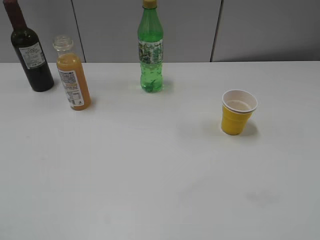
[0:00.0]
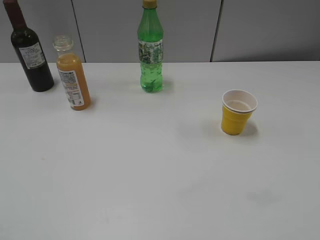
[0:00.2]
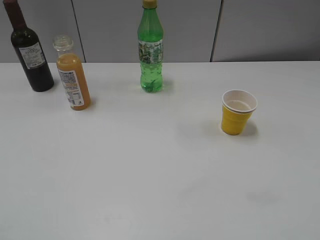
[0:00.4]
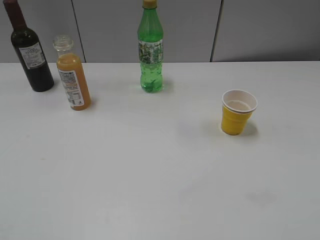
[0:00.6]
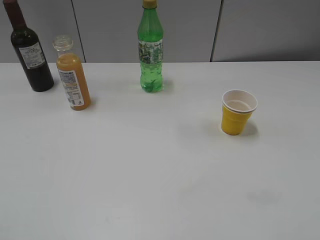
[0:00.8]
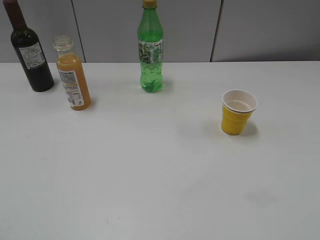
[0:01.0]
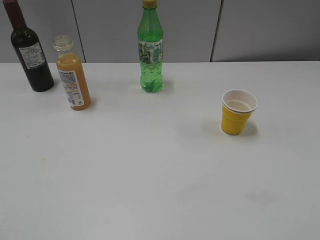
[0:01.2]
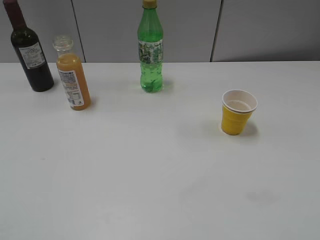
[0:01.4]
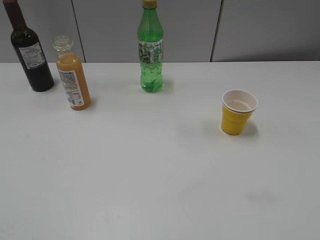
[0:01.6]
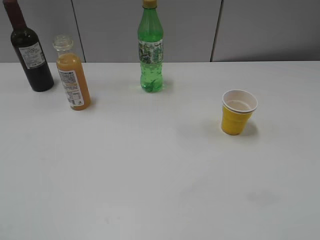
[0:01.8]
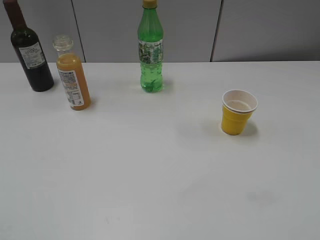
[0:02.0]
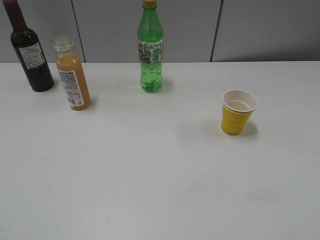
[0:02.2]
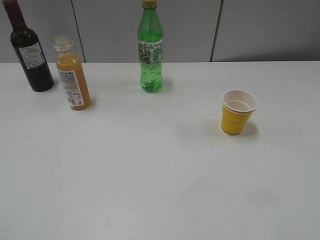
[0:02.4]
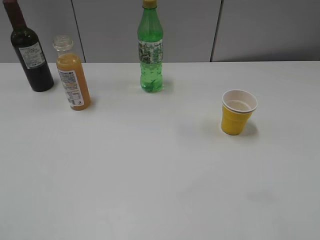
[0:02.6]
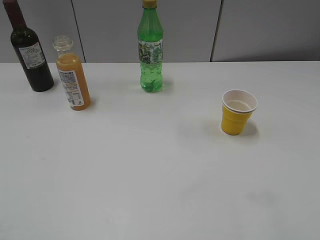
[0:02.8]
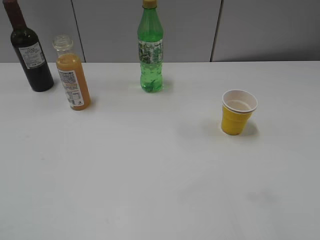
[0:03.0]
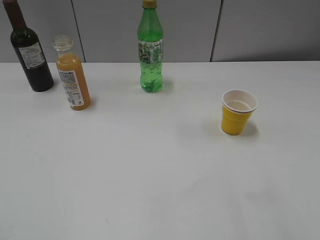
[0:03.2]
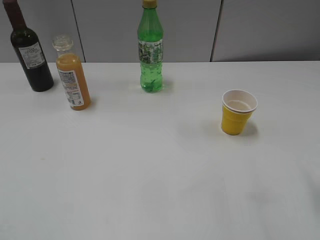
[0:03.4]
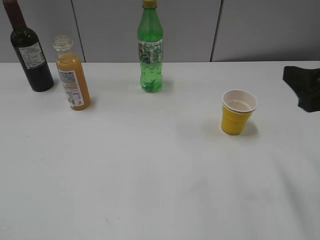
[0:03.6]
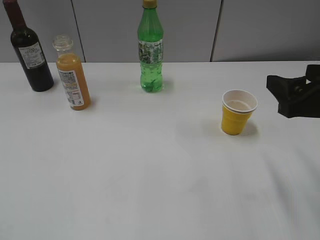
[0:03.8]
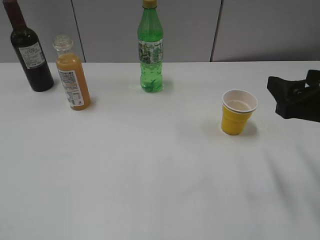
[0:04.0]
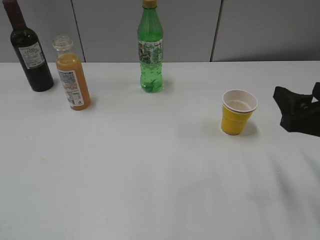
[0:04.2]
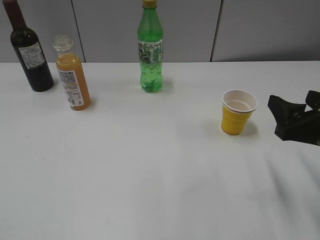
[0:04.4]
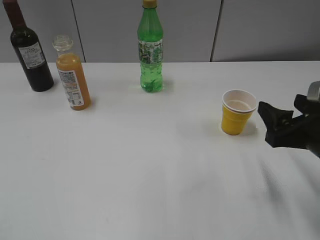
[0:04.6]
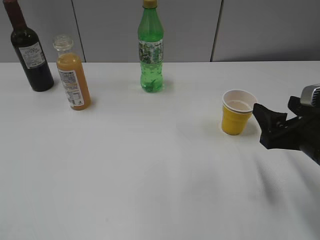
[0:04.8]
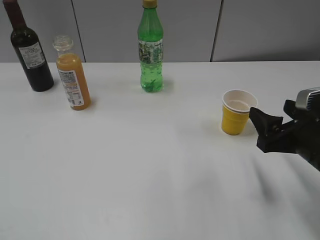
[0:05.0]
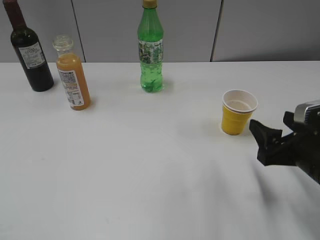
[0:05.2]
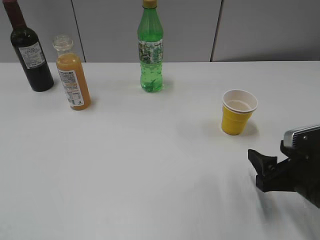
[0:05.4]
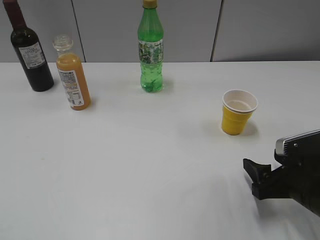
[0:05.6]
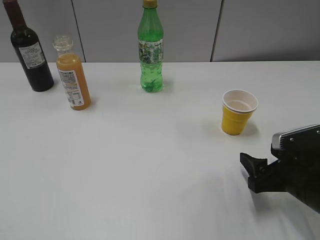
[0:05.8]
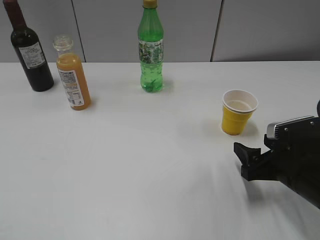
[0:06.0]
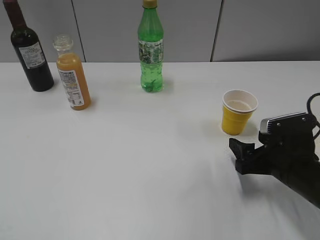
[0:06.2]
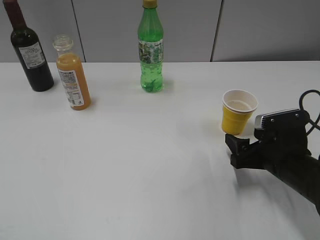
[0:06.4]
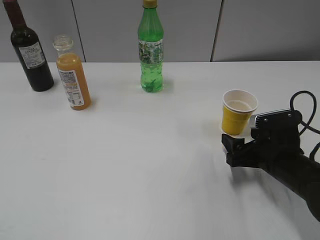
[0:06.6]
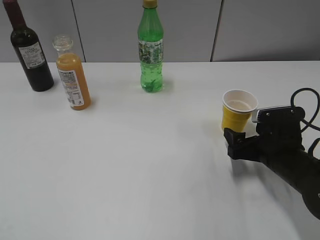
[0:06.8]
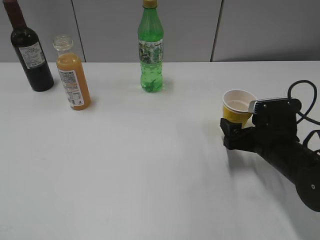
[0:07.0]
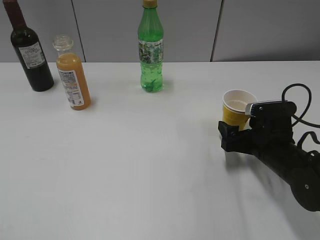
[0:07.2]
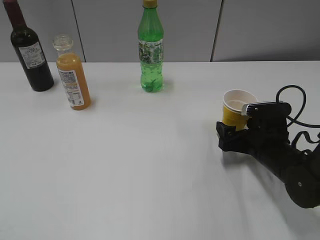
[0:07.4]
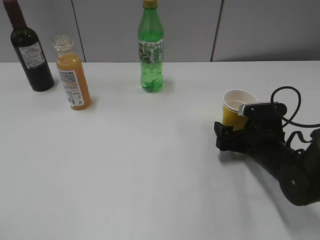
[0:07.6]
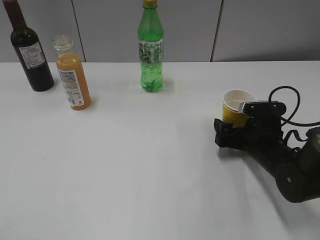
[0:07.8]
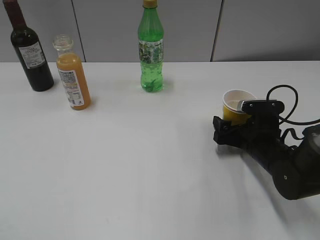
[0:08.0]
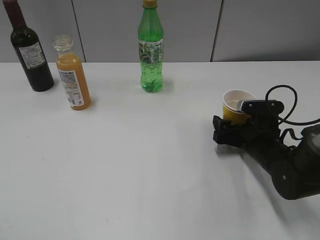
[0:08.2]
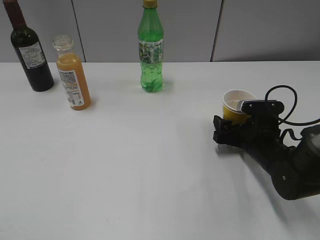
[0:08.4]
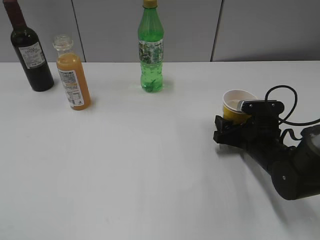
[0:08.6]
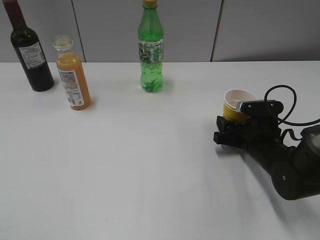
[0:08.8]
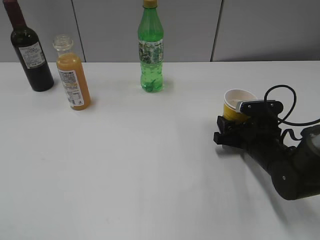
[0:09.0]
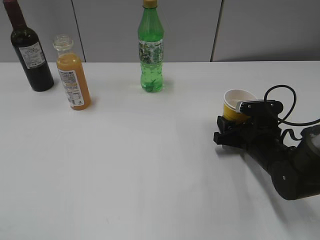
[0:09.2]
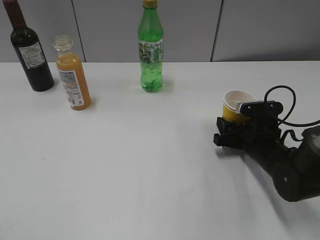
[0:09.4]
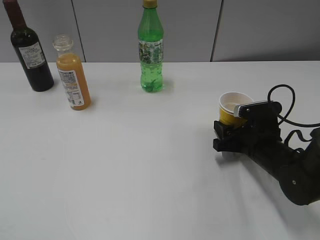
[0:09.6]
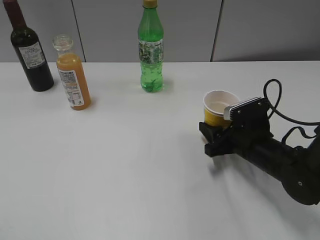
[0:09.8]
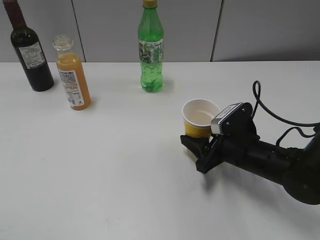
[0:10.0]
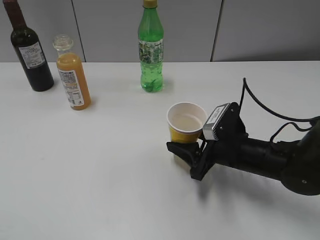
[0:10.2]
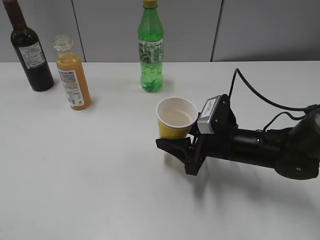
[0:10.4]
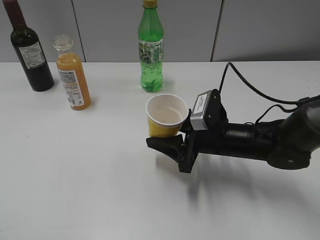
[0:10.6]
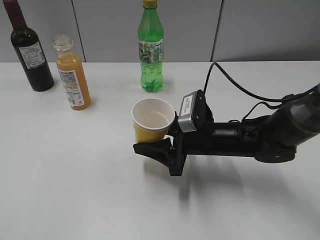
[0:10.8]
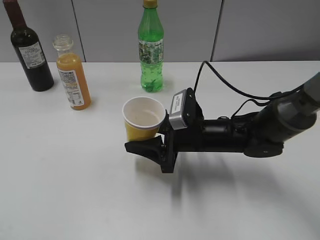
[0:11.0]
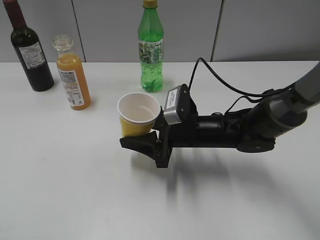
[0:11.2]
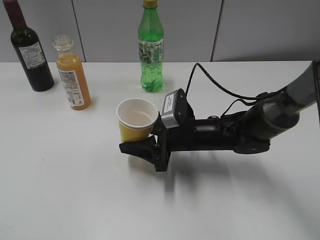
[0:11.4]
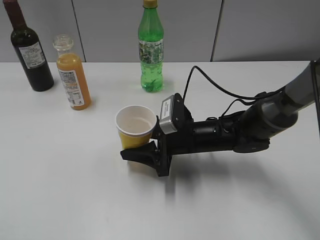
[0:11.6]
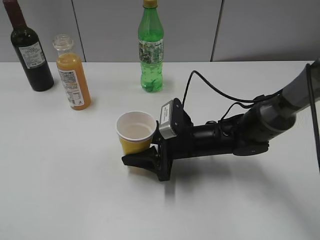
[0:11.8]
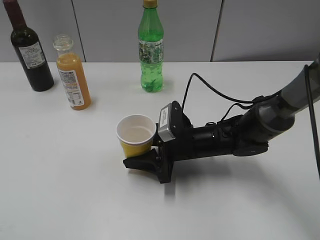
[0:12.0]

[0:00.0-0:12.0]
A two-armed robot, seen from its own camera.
Step, 0:03.6 to 0:09.2: Grasp the yellow paper cup with right gripper.
0:03.0 to 0:04.4: The right gripper heads downward and forward, covering roughly 15 cm.
0:04.4 to 0:06.0: The right gripper heads downward, covering some 10 cm.
0:06.0 to 0:07.6: The right gripper is displaced forward by about 10 cm, and opens up.
0:07.6 to 0:09.0: The right gripper closes.
0:09.0 to 0:10.4: The right gripper goes approximately 5 cm to the left.
0:10.4 to 0:12.0: The right gripper shifts approximately 5 cm to the left.

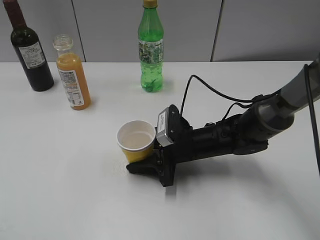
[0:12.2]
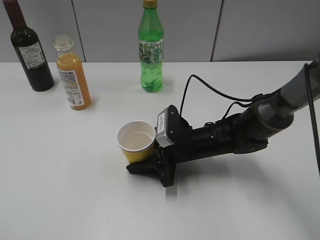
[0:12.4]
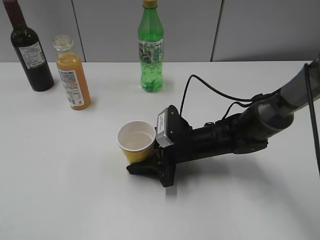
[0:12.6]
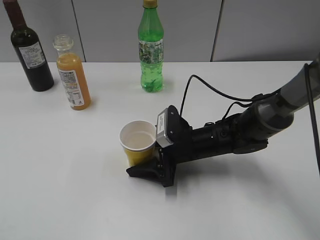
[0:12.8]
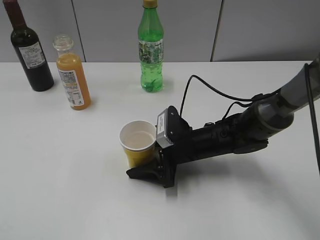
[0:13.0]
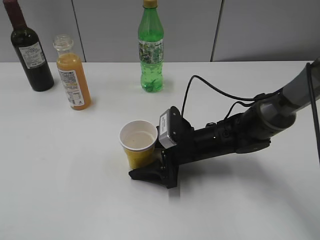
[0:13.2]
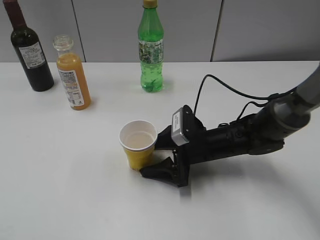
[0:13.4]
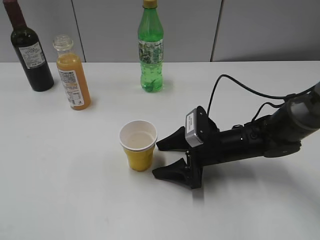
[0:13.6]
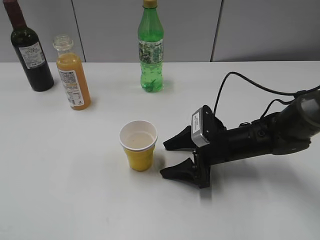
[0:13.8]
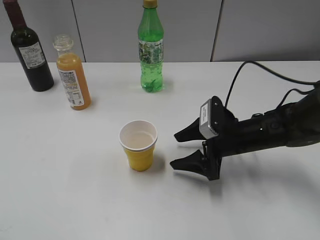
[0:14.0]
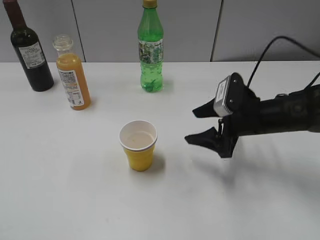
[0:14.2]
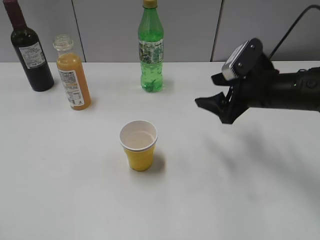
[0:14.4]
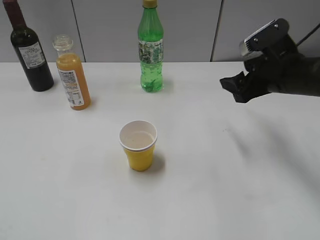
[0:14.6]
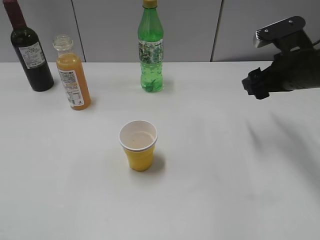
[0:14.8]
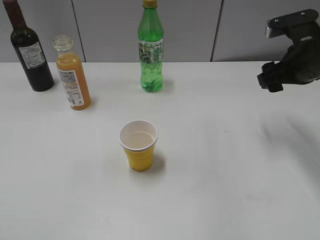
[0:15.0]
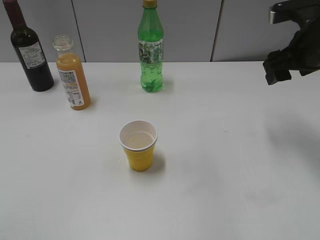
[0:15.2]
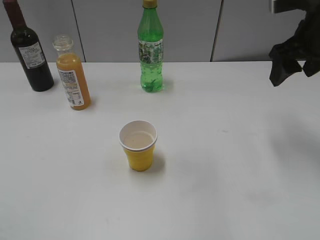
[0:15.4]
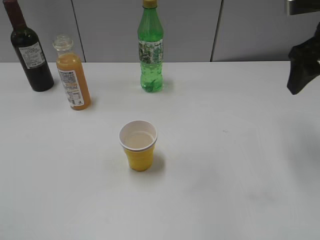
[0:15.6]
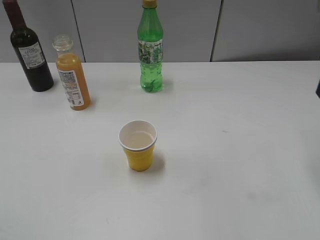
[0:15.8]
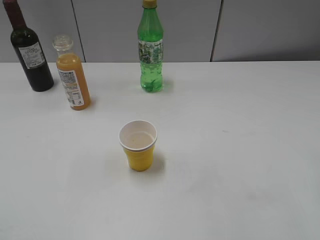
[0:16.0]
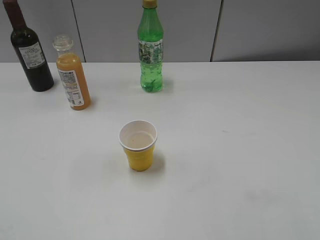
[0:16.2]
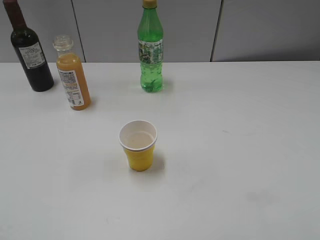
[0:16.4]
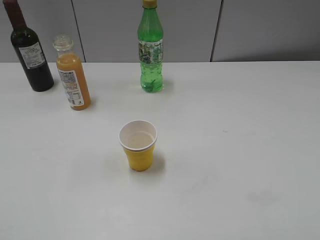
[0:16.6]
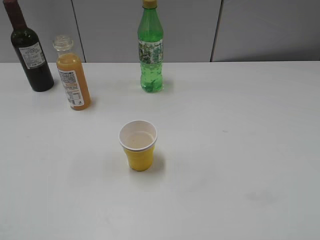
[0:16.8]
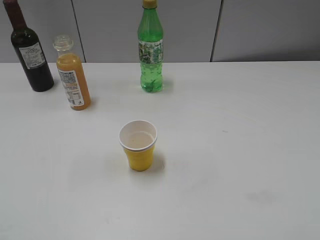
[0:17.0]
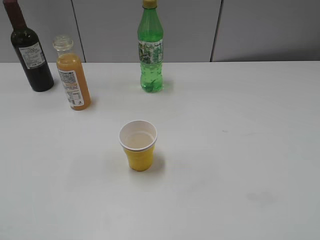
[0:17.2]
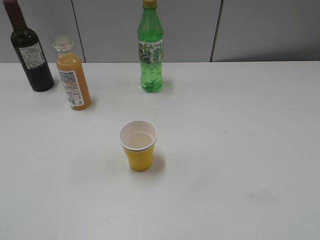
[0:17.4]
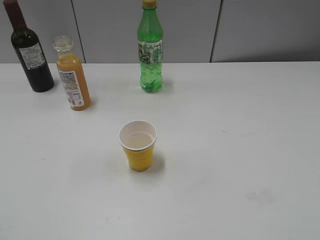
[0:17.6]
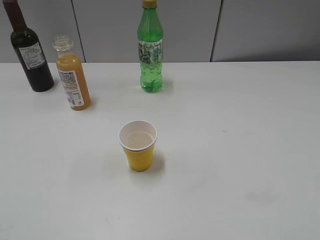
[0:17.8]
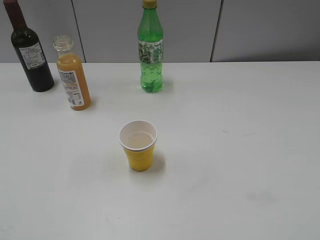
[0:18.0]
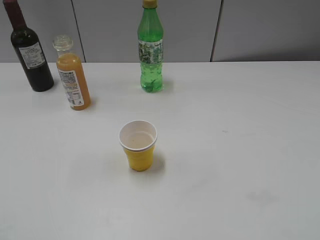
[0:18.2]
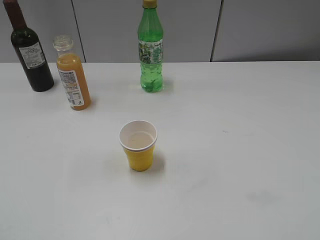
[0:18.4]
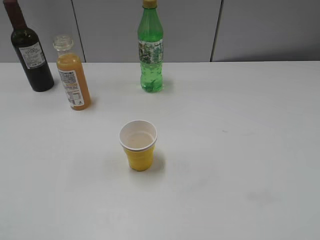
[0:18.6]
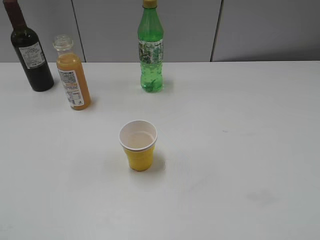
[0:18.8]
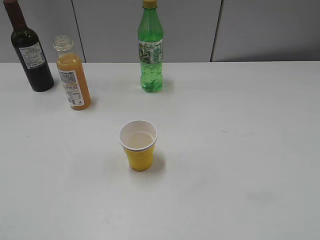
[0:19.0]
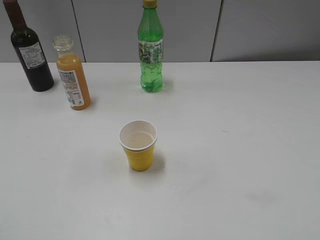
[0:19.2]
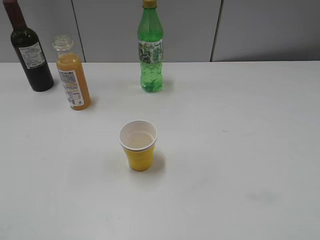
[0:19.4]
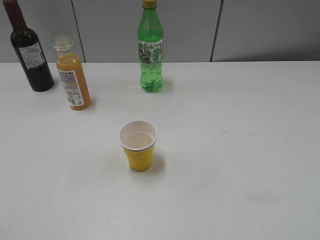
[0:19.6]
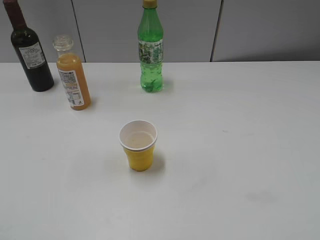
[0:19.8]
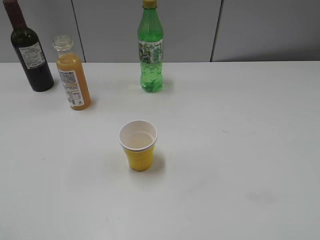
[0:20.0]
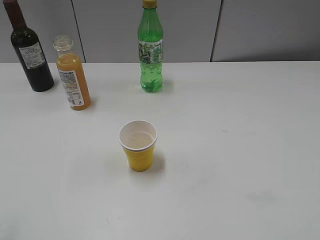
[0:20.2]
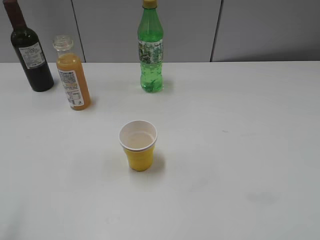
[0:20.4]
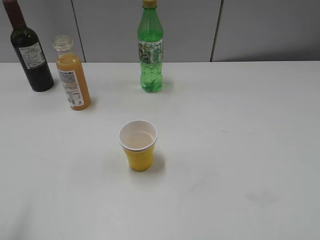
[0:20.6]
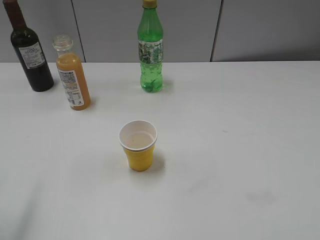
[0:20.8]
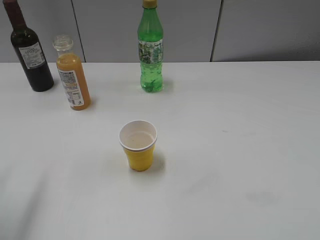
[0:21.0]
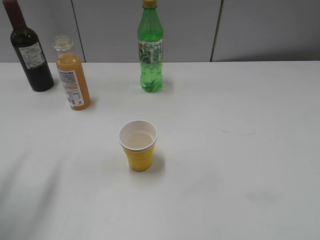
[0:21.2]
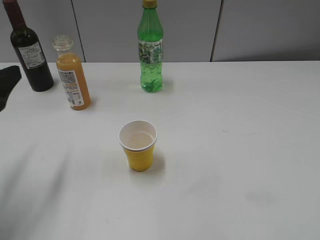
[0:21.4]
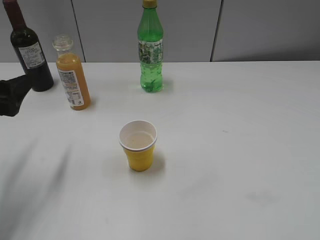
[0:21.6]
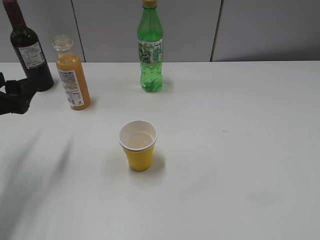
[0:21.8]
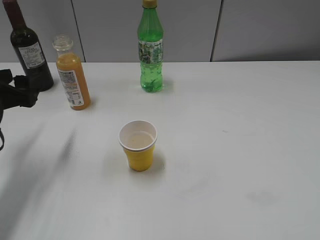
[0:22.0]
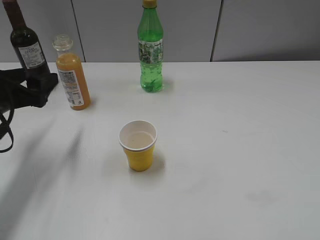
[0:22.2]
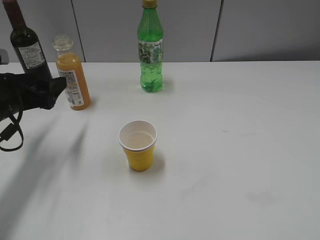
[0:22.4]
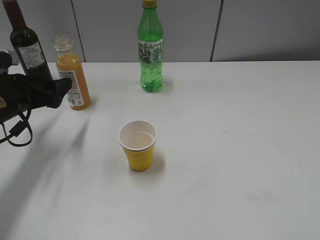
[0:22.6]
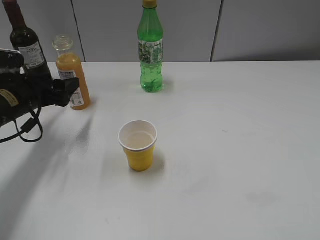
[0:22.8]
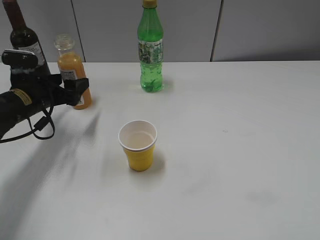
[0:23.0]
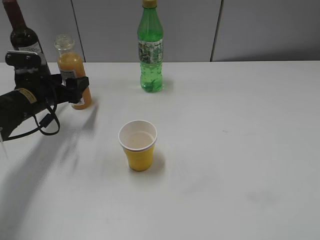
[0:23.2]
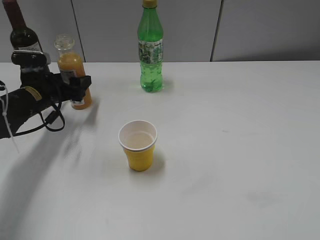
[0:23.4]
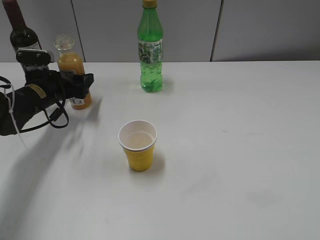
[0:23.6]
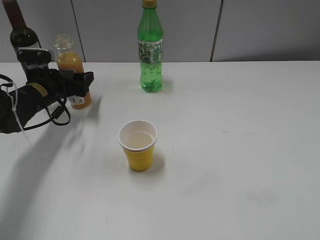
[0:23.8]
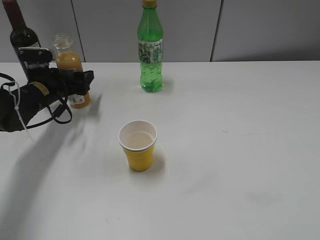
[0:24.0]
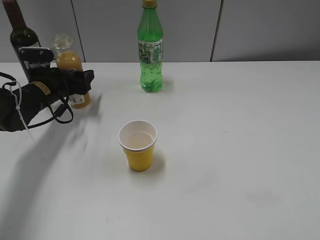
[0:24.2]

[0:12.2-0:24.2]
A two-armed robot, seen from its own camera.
0:12.2 to 0:13.8: The right gripper moves to the right, some 5 cm, and opens its fingers.
0:13.8 to 0:15.2: The right gripper heads upward and to the right, covering approximately 20 cm.
0:15.2 to 0:16.6: The right gripper is displaced backward by some 25 cm.
0:19.8 to 0:21.2: The left gripper heads forward, covering roughly 20 cm.
0:21.2 to 0:22.6: The left gripper moves forward and downward, roughly 20 cm.
0:22.6 to 0:24.2: The left gripper is displaced forward by about 10 cm.
